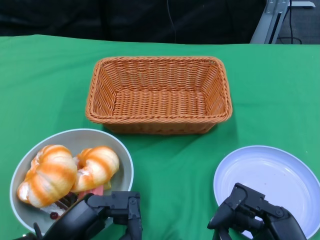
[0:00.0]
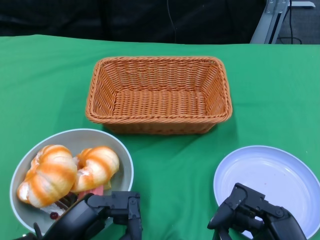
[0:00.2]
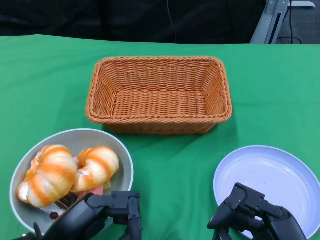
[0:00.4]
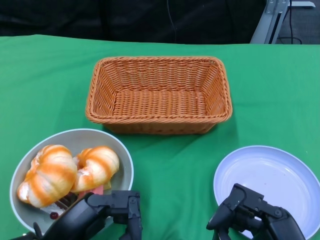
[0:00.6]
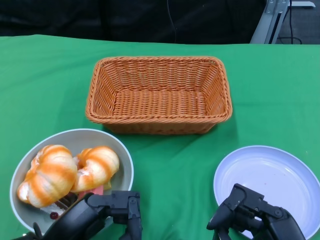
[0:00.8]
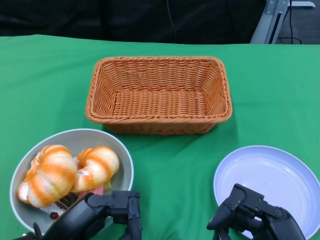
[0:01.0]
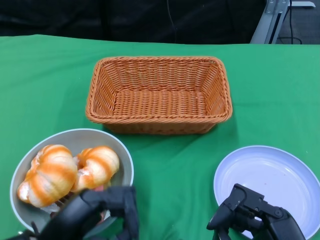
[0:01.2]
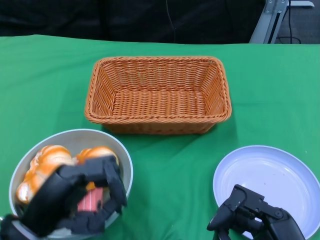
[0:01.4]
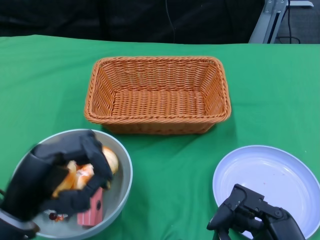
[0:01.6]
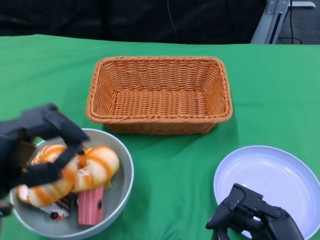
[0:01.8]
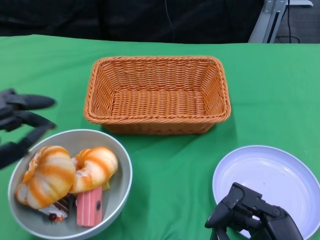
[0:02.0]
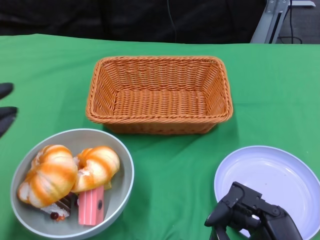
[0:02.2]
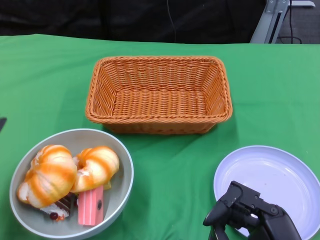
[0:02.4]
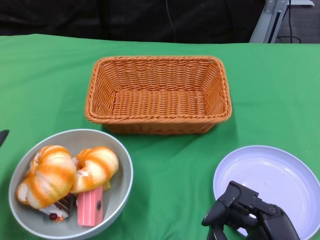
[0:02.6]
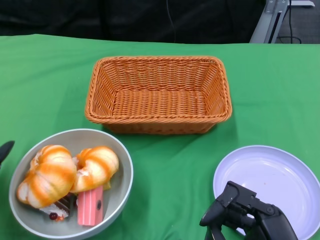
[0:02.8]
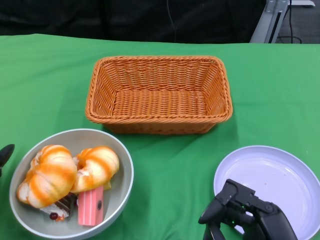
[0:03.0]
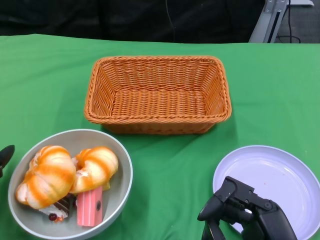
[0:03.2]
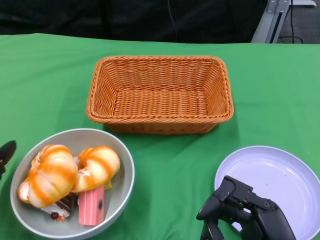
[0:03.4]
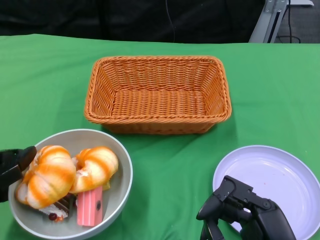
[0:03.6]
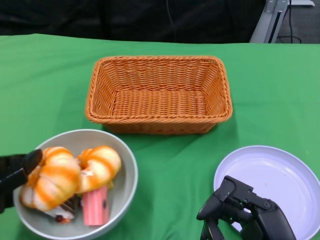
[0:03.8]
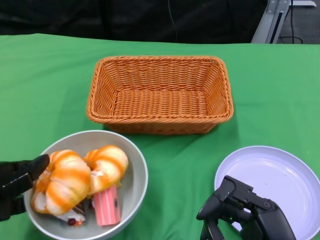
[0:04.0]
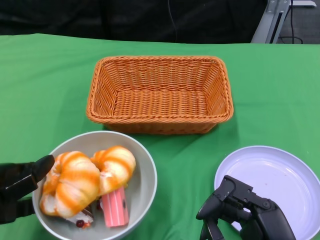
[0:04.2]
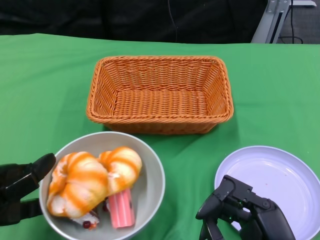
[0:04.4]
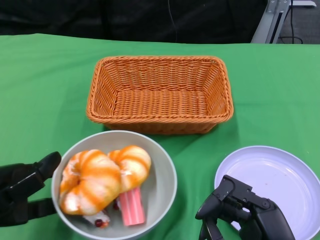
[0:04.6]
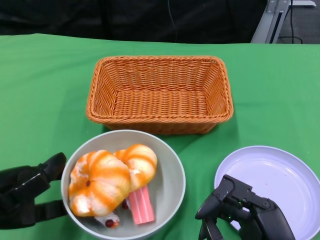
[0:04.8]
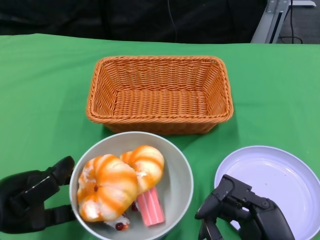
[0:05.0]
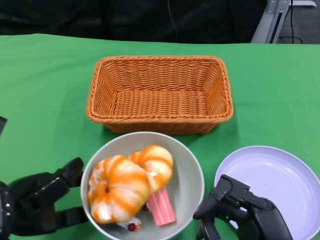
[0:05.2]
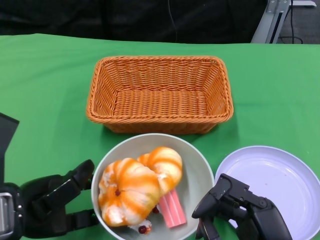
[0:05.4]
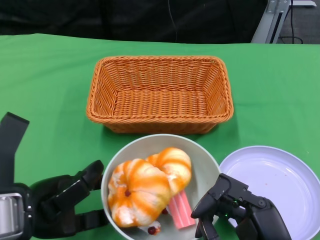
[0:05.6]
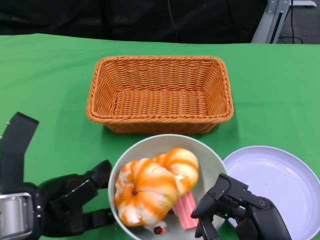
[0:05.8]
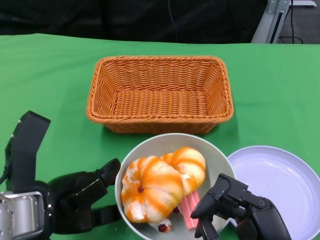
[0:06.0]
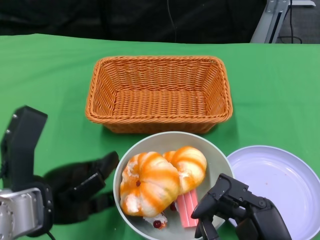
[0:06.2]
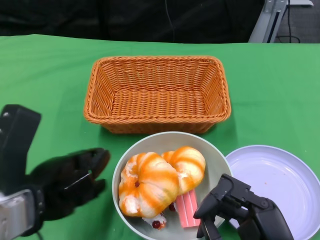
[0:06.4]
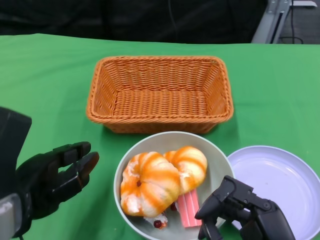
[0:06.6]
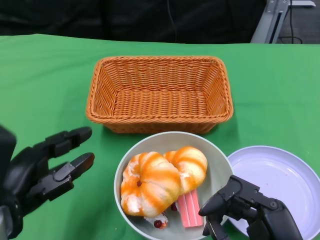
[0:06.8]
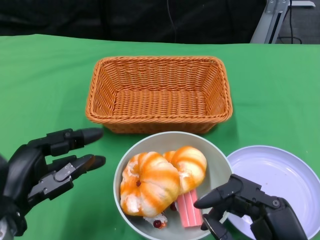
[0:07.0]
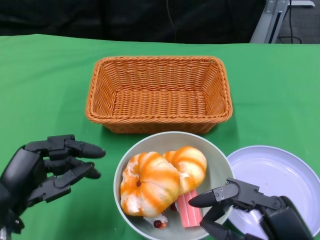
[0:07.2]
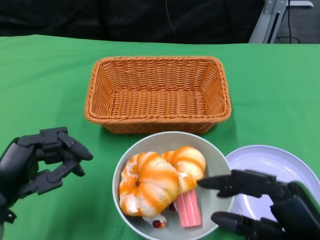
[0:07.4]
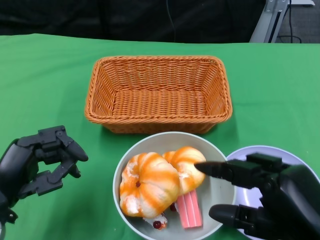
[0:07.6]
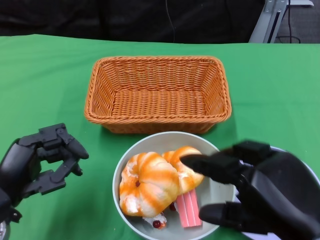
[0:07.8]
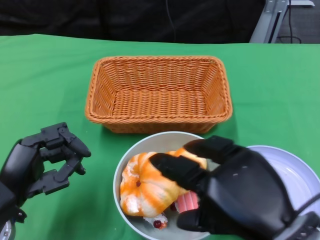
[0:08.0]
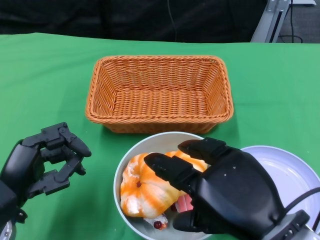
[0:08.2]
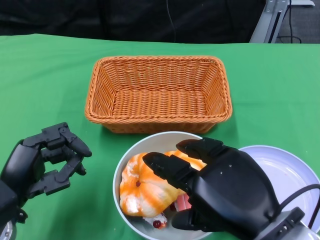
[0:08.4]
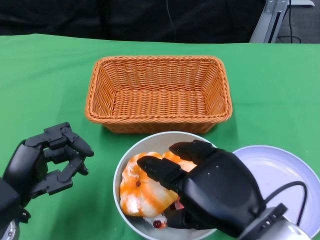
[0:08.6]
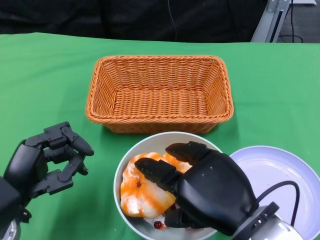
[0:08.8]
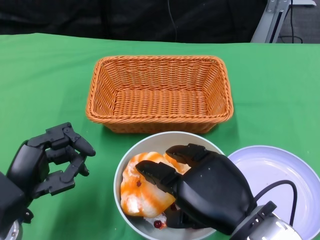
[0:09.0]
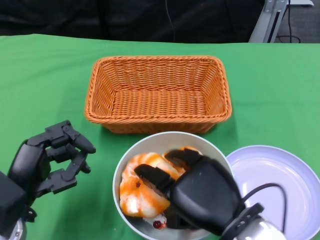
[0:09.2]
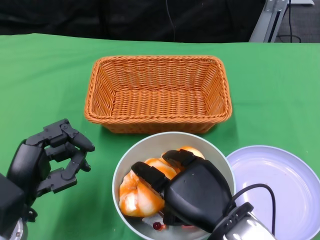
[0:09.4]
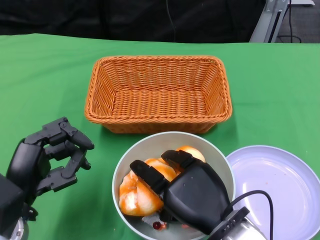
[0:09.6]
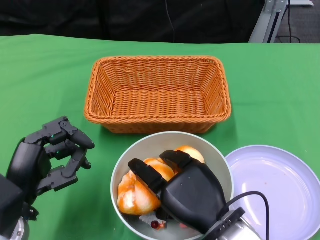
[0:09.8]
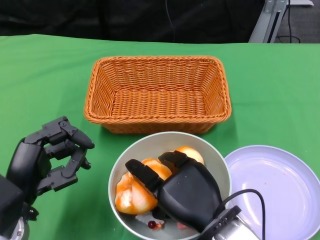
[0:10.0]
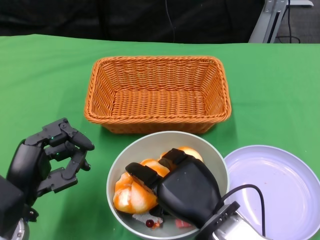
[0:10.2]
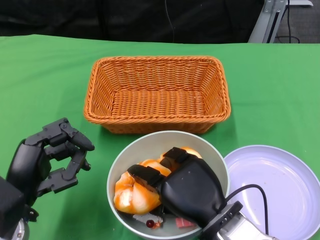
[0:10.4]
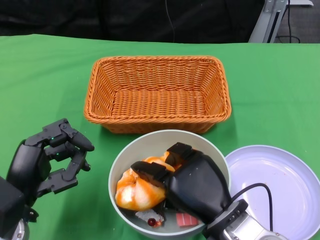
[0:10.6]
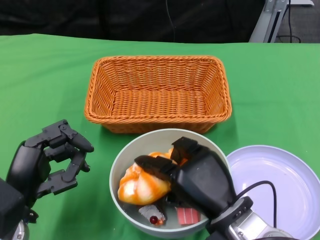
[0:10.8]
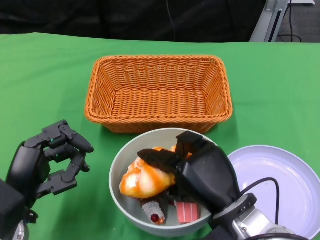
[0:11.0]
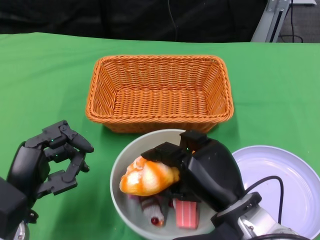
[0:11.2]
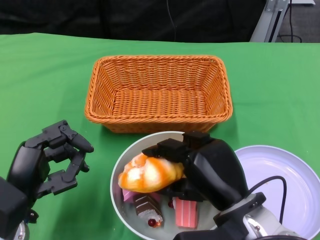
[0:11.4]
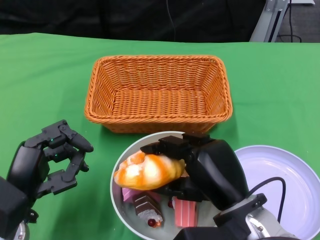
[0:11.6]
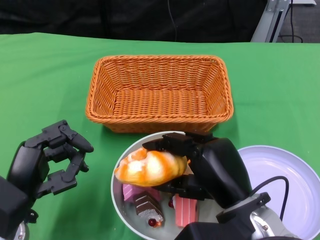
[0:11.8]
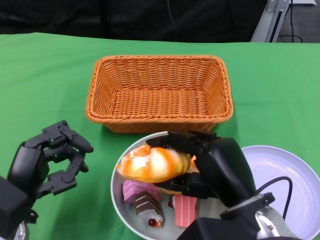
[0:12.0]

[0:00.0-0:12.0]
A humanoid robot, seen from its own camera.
Step, 0:00.0 to 0:06.2: Push the bowl to the center of the table using the left gripper.
0:01.6 to 0:03.0: The left hand shifts roughly 10 cm to the left and forward.
0:04.4 to 0:06.0: The left hand is displaced to the right by roughly 10 cm.
0:06.0 to 0:07.6: The left hand moves to the left, roughly 5 cm. Meanwhile the right hand moves upward, roughly 5 cm.
0:07.6 to 0:09.0: The right hand moves to the left, approximately 5 cm.
0:09.0 to 0:10.4: The right hand goes some 5 cm downward.

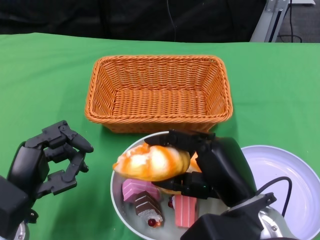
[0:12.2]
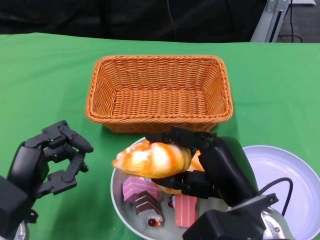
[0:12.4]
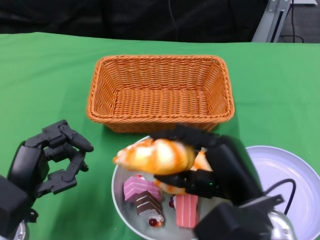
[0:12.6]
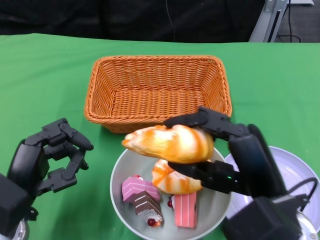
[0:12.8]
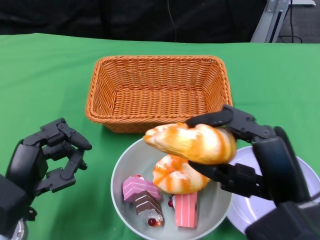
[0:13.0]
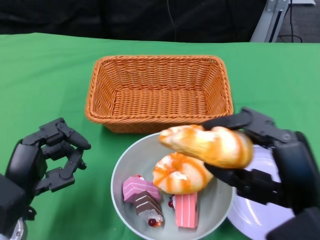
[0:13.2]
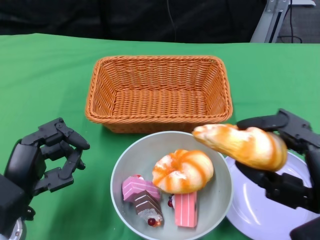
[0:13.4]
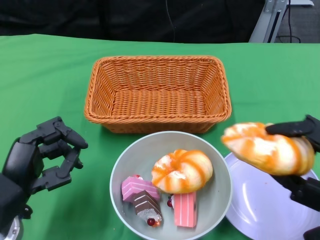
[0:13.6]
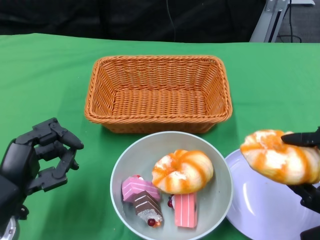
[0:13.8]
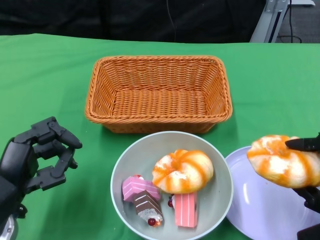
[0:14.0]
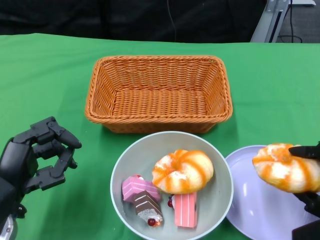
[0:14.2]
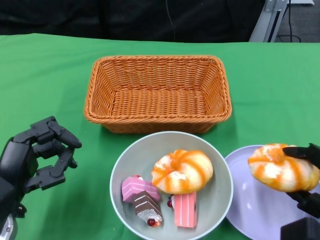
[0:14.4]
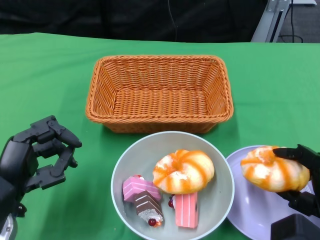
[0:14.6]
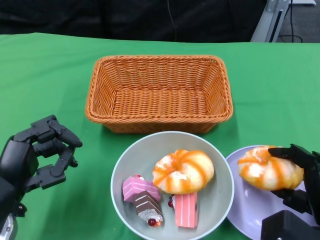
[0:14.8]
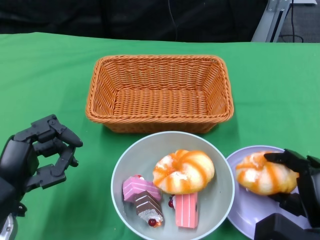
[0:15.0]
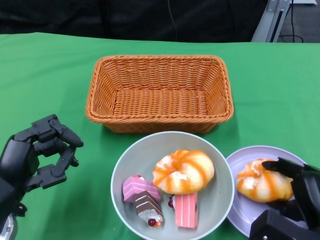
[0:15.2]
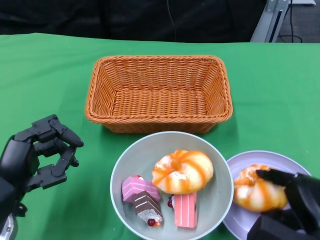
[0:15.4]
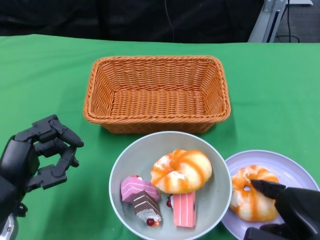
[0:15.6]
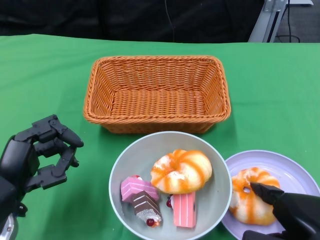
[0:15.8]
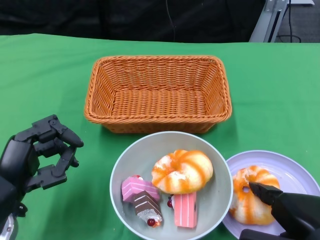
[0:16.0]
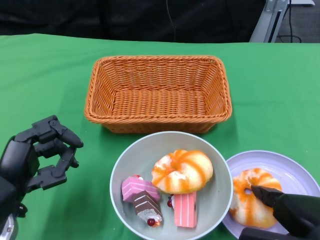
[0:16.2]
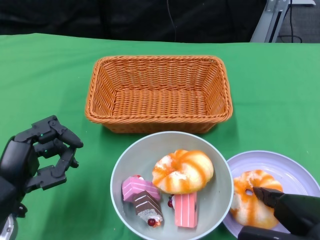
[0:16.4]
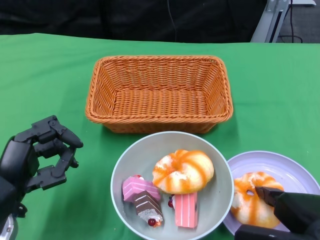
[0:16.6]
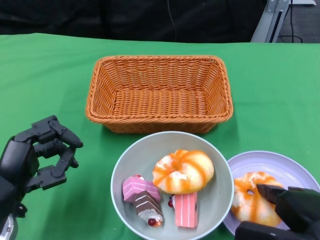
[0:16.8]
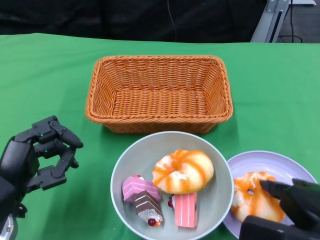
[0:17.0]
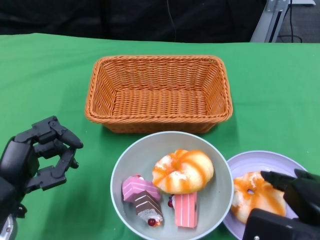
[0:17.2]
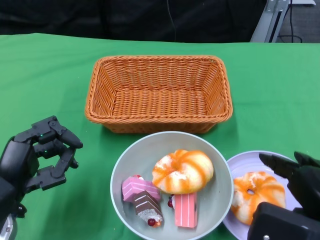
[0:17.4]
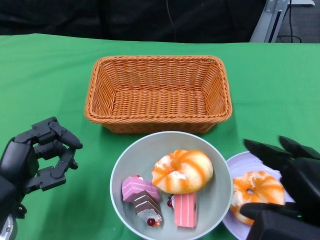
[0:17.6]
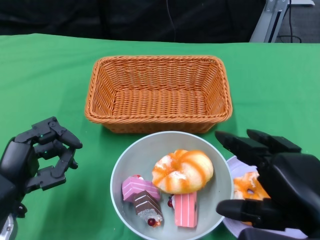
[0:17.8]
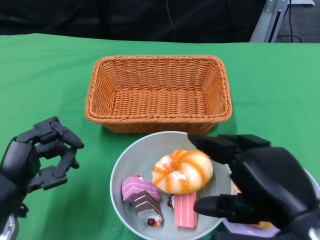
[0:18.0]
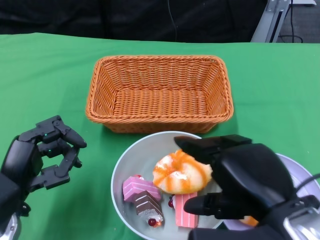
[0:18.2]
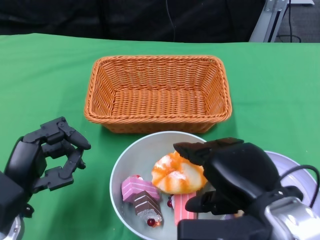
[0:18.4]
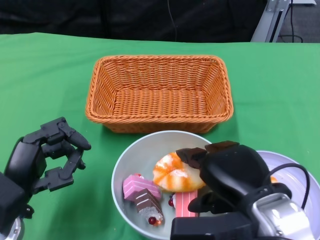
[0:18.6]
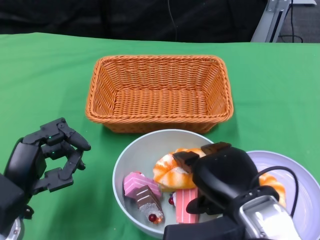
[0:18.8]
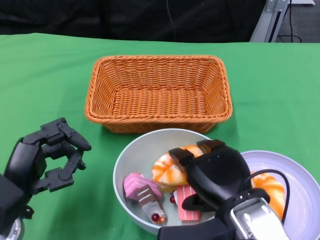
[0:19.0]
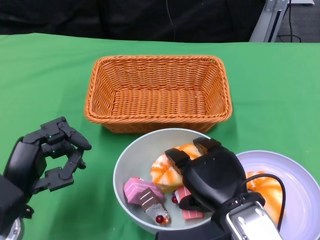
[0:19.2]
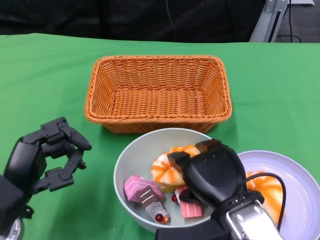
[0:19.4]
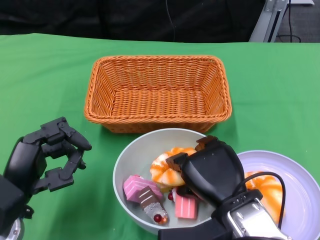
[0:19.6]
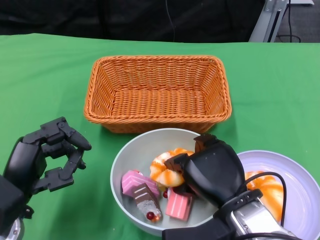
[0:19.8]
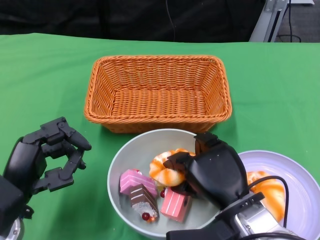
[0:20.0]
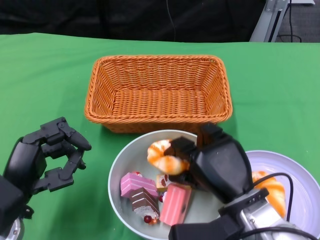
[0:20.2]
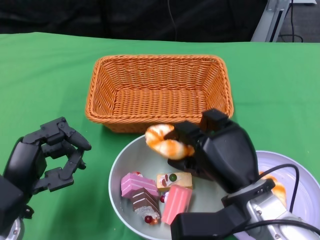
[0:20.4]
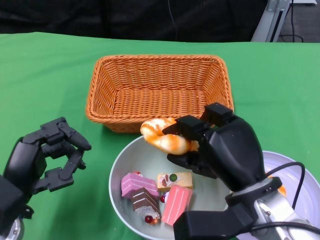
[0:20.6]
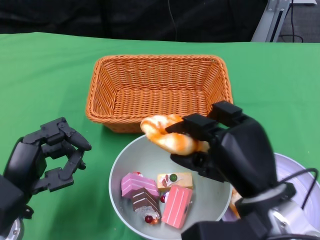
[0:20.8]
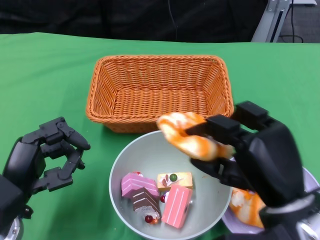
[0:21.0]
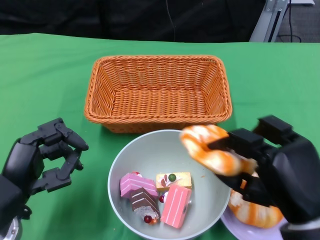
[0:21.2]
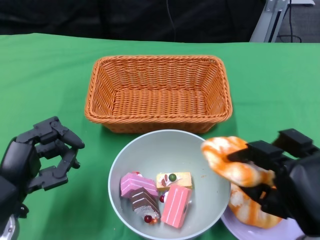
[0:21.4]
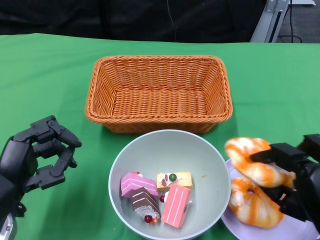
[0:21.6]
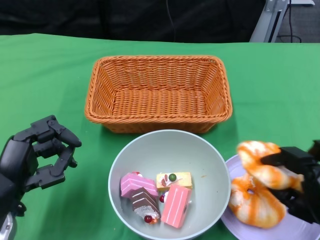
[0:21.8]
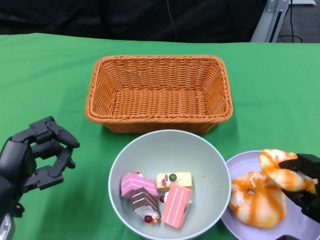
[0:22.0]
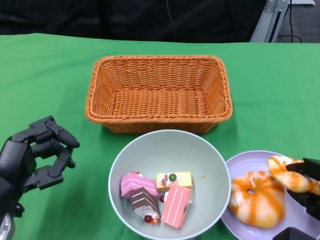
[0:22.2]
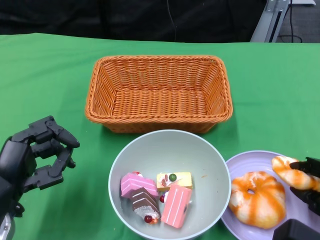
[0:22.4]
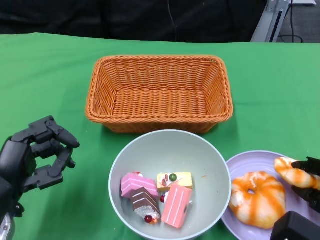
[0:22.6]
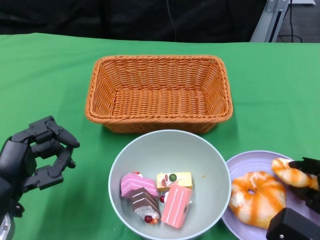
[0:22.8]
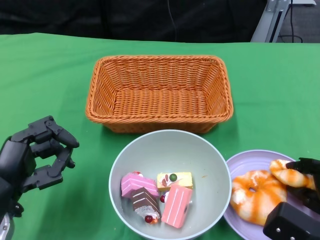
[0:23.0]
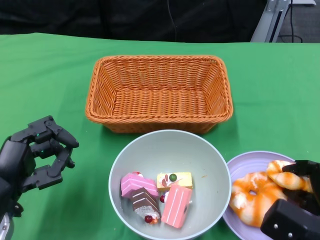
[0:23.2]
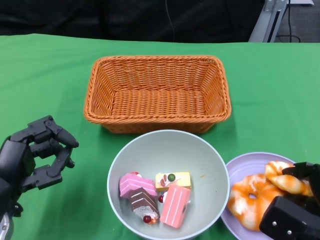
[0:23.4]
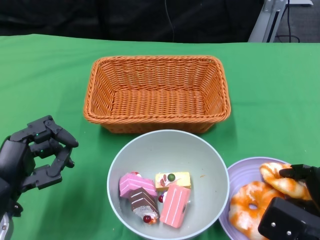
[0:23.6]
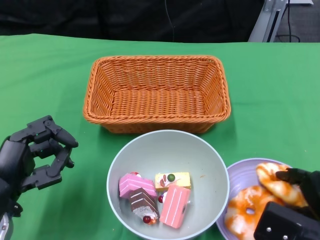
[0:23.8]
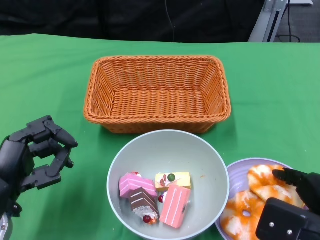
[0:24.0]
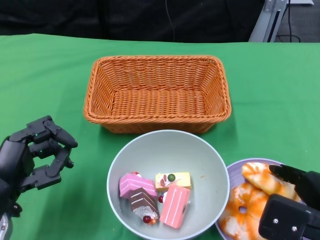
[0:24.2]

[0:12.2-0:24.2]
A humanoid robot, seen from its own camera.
0:12.2 to 0:13.8: The right hand shifts roughly 15 cm to the right and backward.
0:13.8 to 0:15.2: The right hand shifts approximately 10 cm downward.
0:15.2 to 0:16.6: The right hand travels upward by about 10 cm.
0:16.6 to 0:18.2: The right hand moves upward and to the left, approximately 10 cm.
0:18.2 to 0:19.8: The right hand shifts about 10 cm downward and forward.
0:19.8 to 0:21.2: The right hand travels to the right by some 5 cm.
0:21.2 to 0:22.6: The right hand travels to the right and downward by roughly 10 cm.
0:22.6 to 0:24.2: The right hand is displaced upward by approximately 5 cm.
